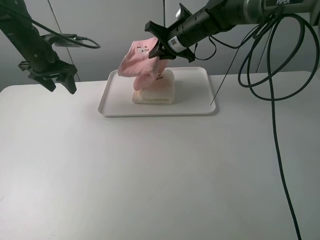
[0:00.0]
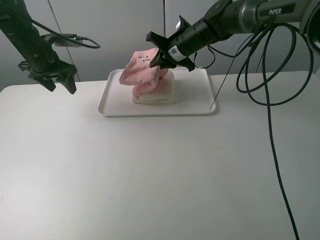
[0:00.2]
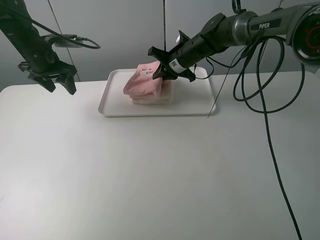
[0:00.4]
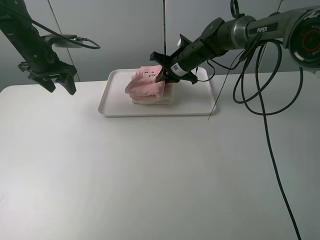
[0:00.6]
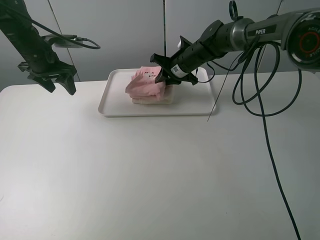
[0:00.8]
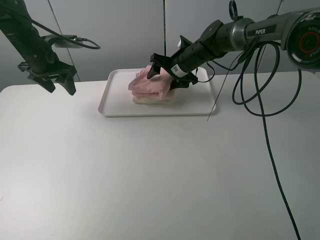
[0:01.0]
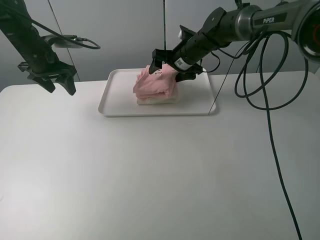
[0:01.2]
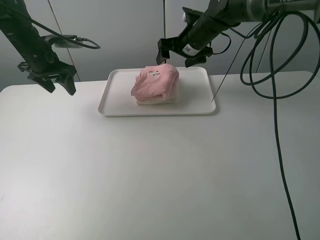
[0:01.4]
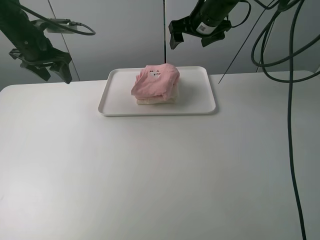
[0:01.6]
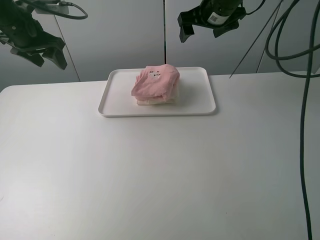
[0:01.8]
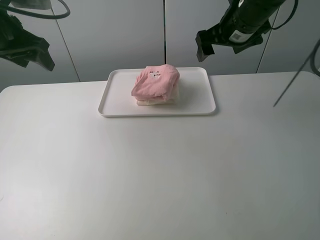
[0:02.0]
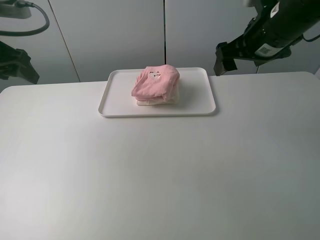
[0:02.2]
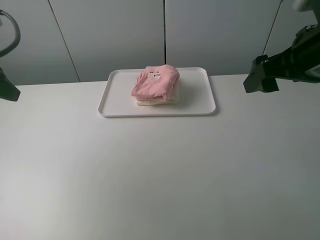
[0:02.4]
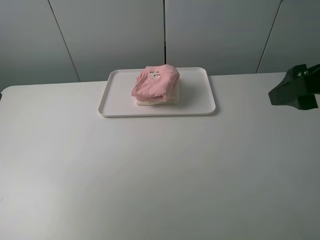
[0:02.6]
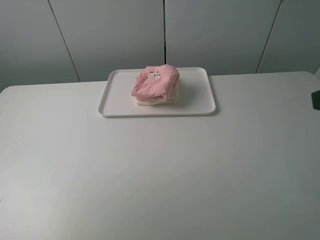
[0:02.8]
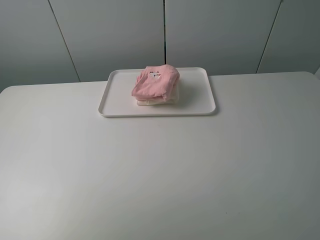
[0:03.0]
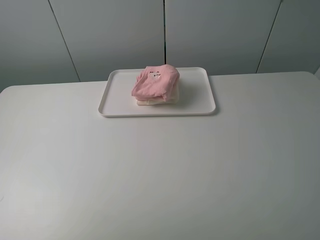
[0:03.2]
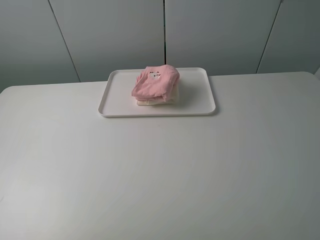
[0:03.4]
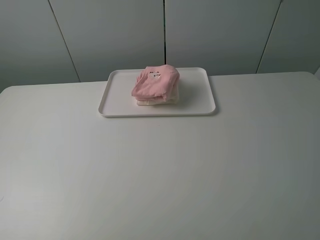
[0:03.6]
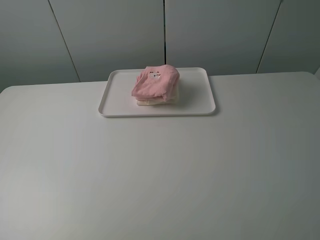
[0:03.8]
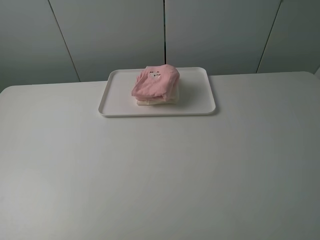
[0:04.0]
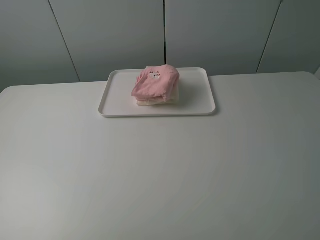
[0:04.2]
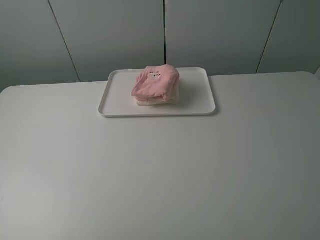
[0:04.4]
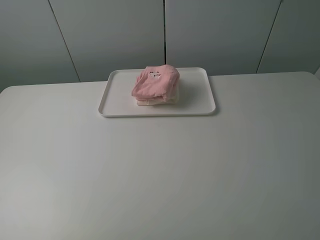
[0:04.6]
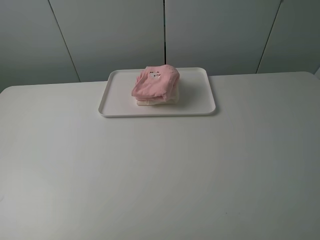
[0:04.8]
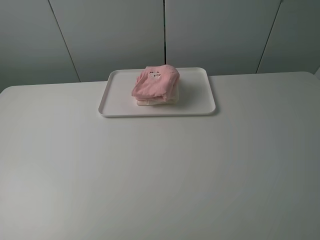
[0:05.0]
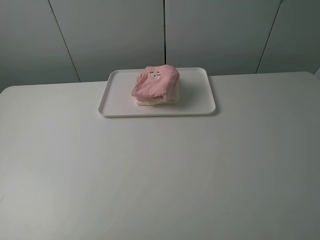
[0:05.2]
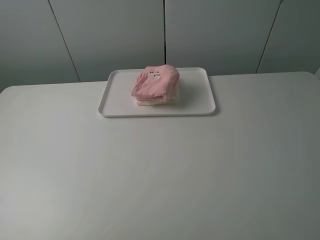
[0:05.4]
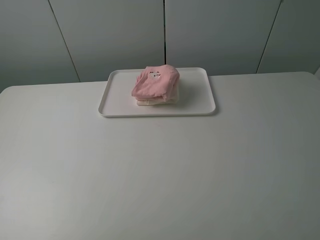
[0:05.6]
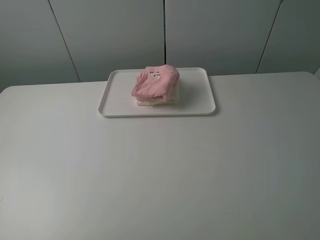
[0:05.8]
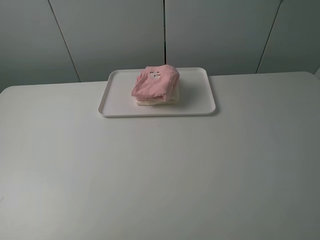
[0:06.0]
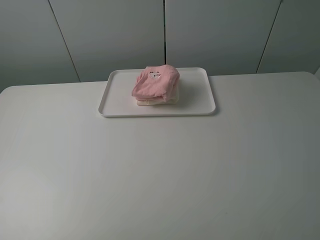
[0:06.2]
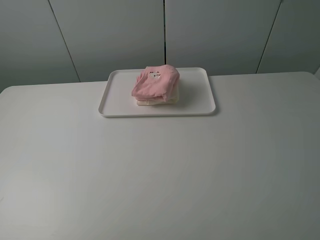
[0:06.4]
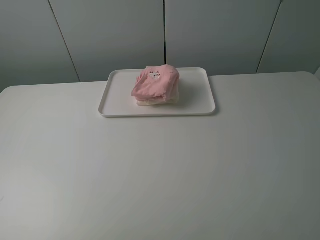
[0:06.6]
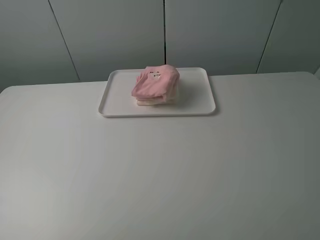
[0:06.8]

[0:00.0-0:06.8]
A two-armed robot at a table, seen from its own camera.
Task of the whole recording: fold one of the towels by two grippers and place it on the tray,then fold another towel by two grippers and place it on the folded towel.
0:00.0 to 0:01.4: The right gripper opens.
0:01.4 to 0:02.8: The right gripper goes roughly 40 cm backward and to the right. Meanwhile the left gripper shifts approximately 35 cm backward and upward.
0:05.4 to 0:06.8: Both grippers stay about where they are.
